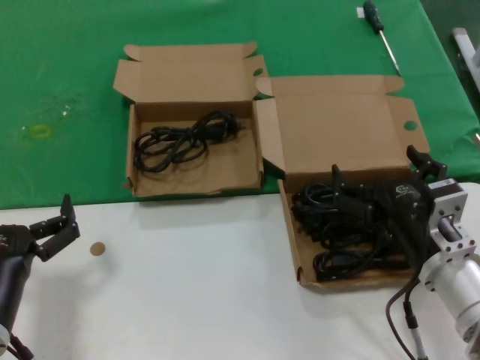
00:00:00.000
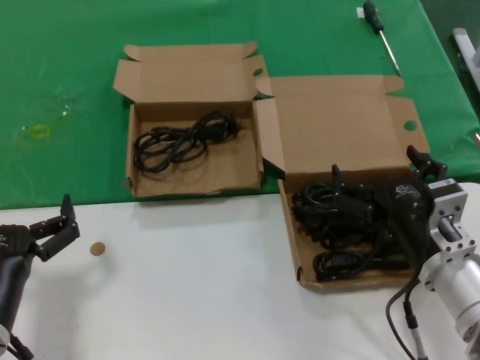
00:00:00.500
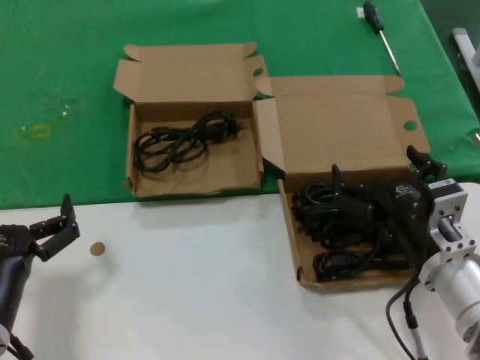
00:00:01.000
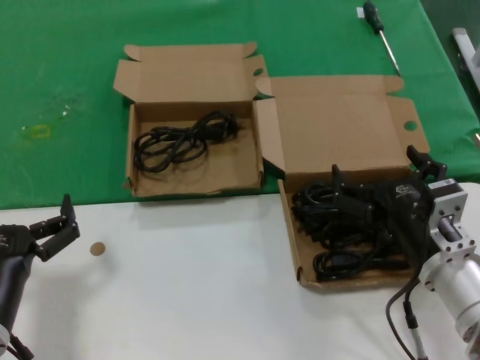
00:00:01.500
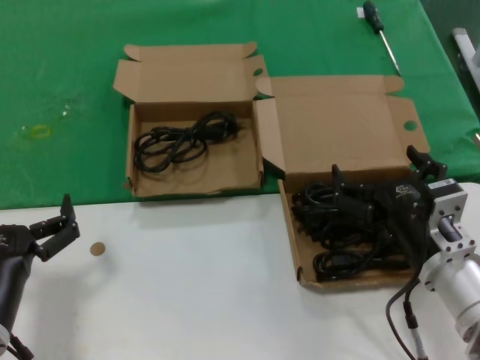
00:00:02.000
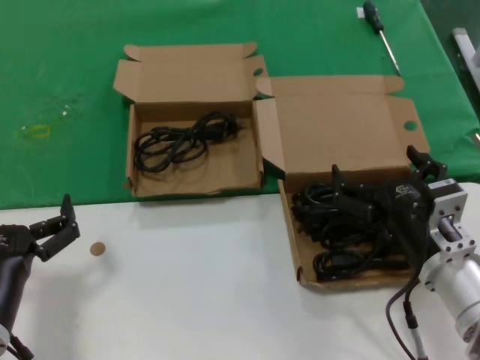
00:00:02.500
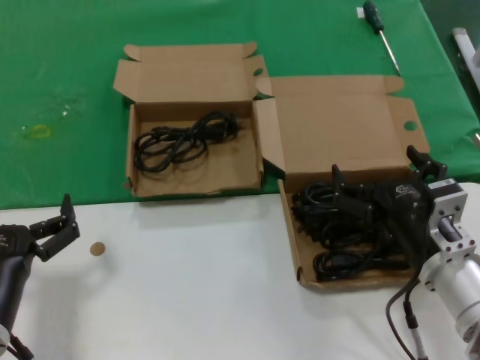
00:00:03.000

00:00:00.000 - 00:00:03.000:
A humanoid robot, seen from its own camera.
Task of the whole recording: take the parts from the box containing them and put them into an empty box.
00:00:00.000 - 00:00:03.000: The two hands keep their place.
